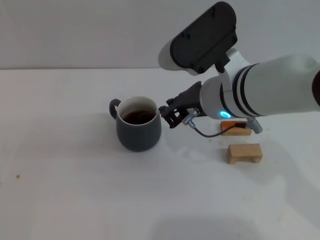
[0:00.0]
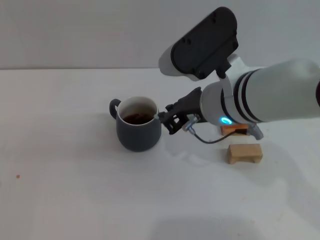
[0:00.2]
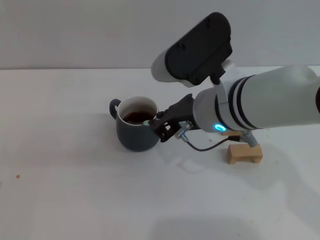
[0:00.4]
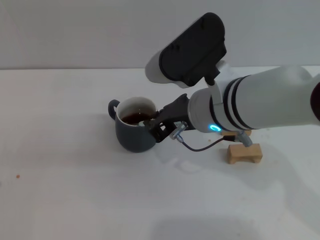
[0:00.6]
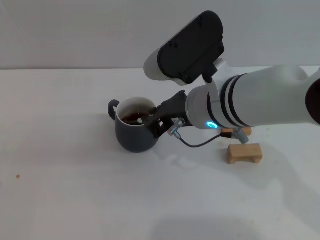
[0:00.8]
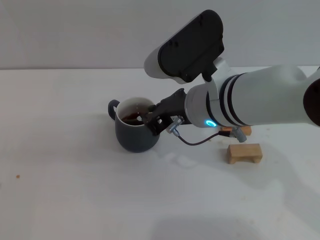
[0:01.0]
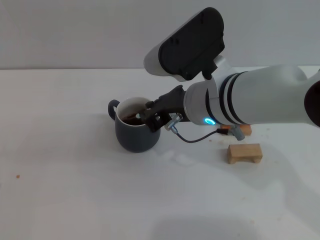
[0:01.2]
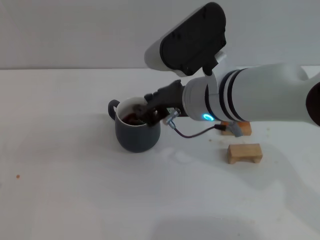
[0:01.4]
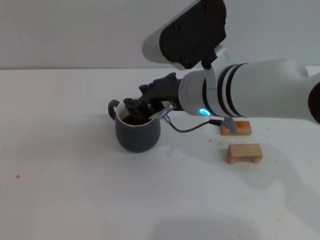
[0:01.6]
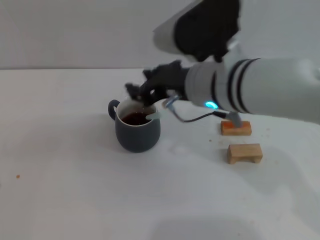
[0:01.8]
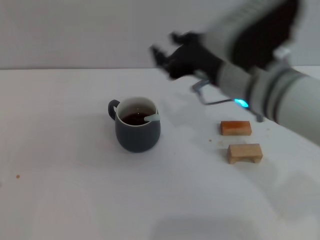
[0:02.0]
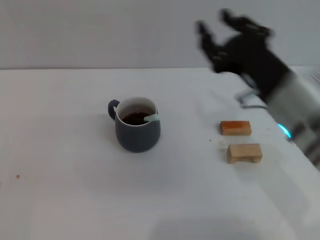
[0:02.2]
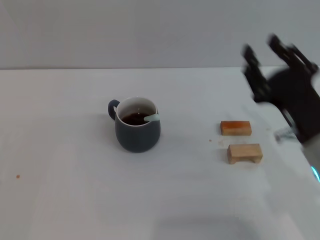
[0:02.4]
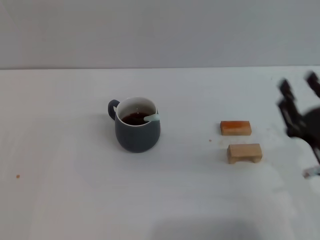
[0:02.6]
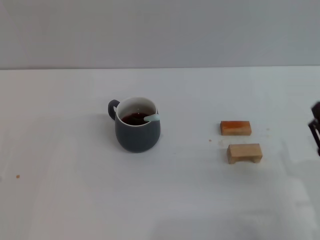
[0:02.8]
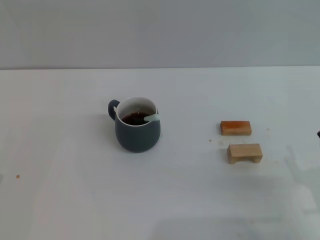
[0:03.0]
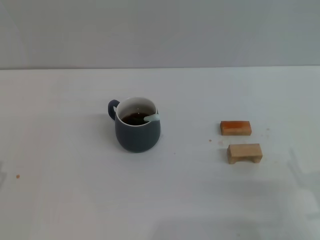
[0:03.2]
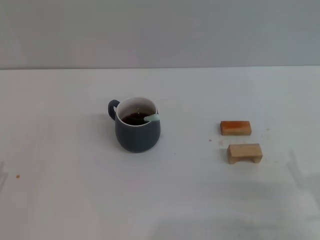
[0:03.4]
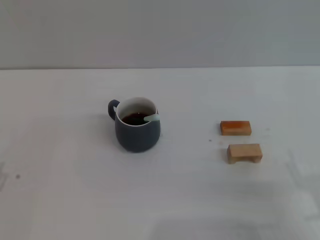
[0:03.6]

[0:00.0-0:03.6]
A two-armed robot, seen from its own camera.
Task of the whole recording: Move the grey cup to the center, lift the blue spoon, stir it three times in the cup, and put the spoon into the cup.
0:00.0 to 0:01.8: The right gripper opens up.
0:01.8 to 0:03.6: The right gripper moves to the right, backward and downward, approximately 30 cm, and opens its fingers.
